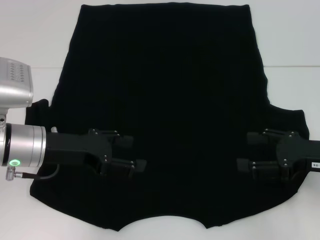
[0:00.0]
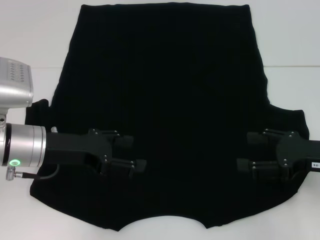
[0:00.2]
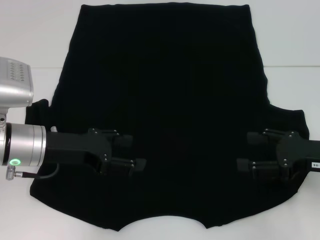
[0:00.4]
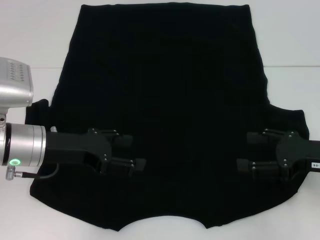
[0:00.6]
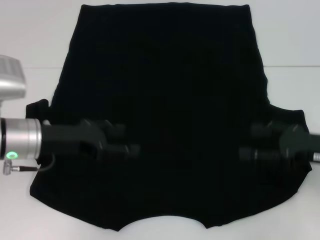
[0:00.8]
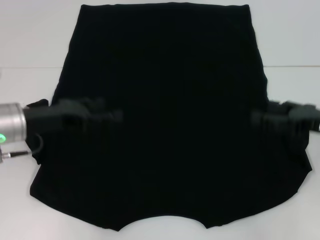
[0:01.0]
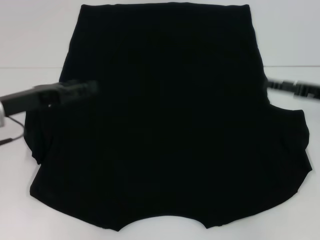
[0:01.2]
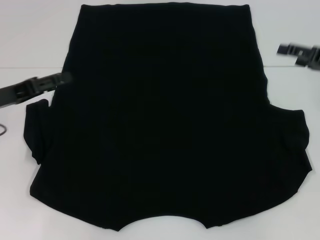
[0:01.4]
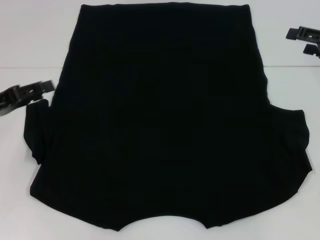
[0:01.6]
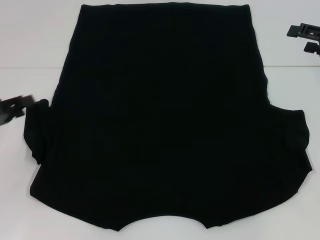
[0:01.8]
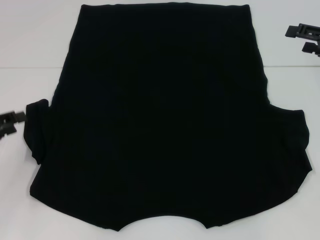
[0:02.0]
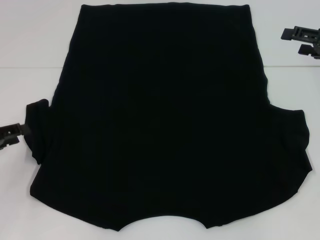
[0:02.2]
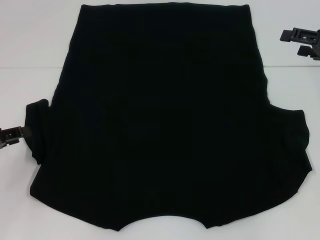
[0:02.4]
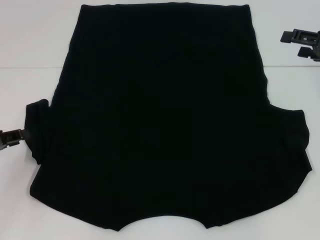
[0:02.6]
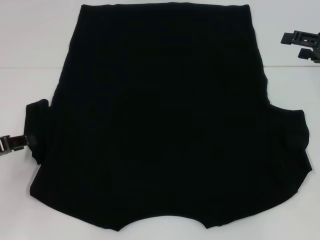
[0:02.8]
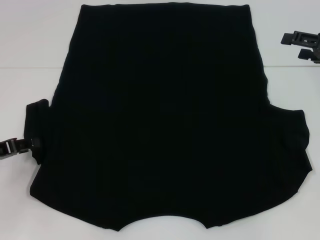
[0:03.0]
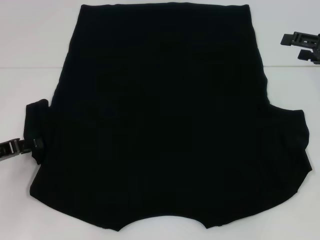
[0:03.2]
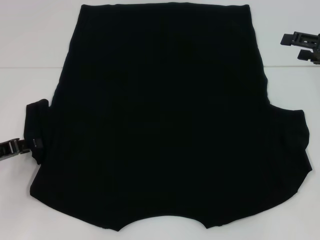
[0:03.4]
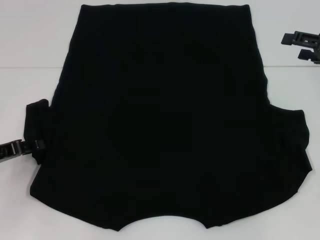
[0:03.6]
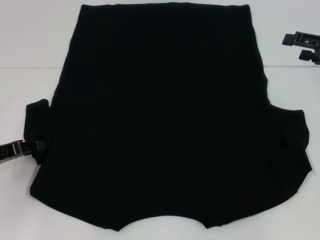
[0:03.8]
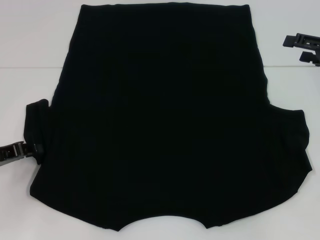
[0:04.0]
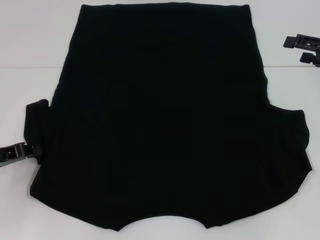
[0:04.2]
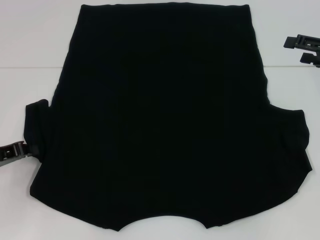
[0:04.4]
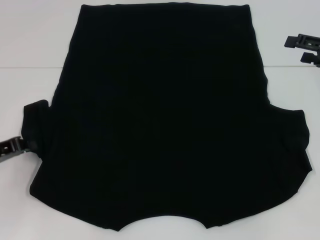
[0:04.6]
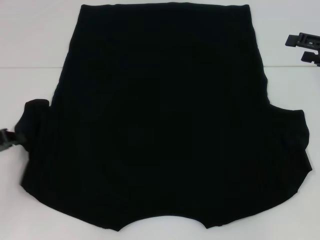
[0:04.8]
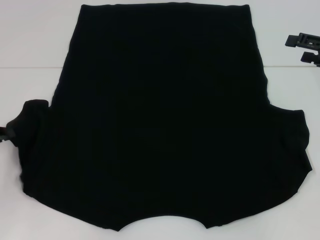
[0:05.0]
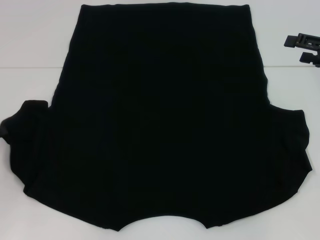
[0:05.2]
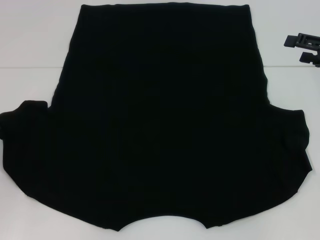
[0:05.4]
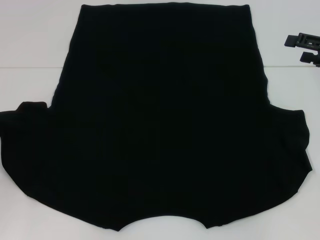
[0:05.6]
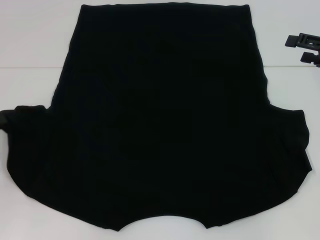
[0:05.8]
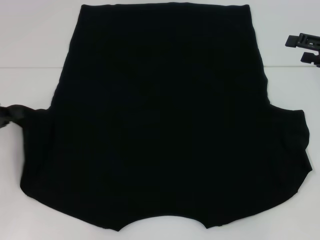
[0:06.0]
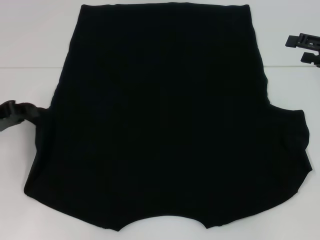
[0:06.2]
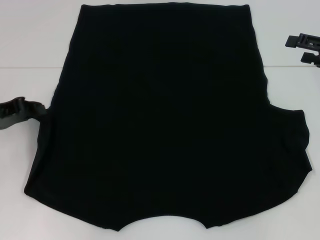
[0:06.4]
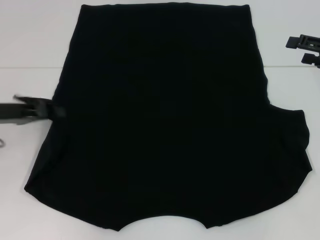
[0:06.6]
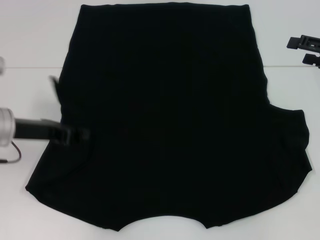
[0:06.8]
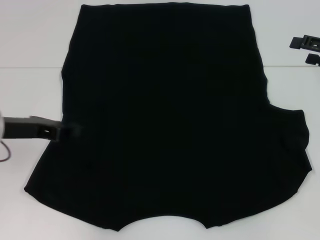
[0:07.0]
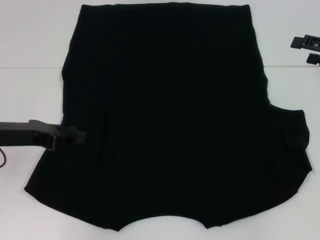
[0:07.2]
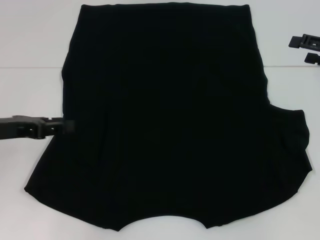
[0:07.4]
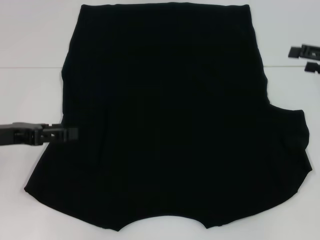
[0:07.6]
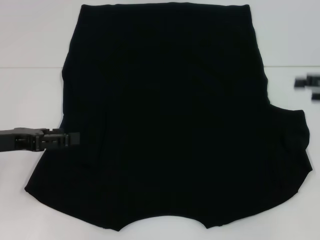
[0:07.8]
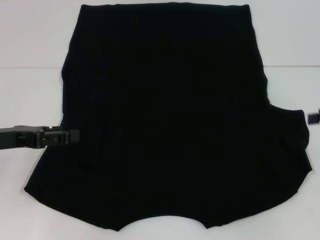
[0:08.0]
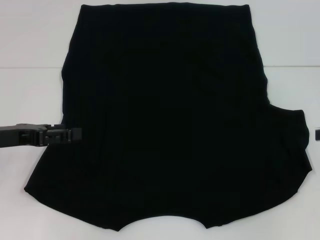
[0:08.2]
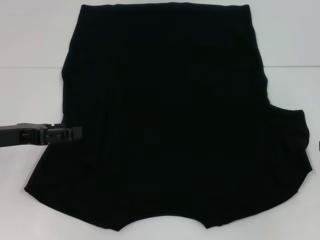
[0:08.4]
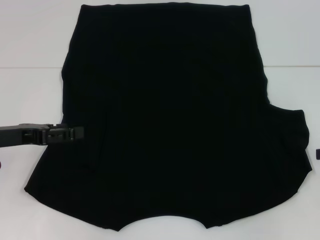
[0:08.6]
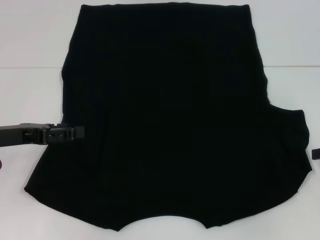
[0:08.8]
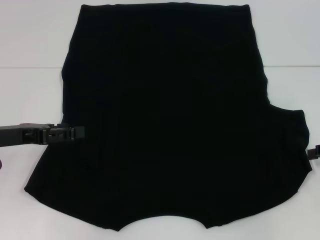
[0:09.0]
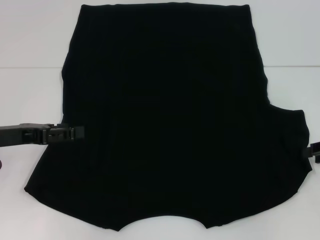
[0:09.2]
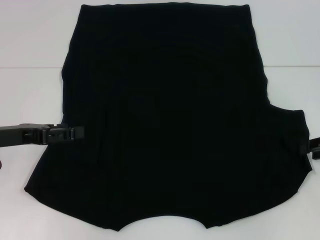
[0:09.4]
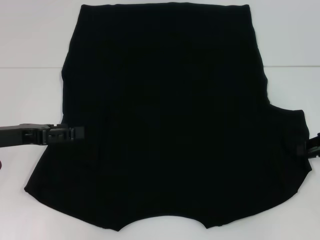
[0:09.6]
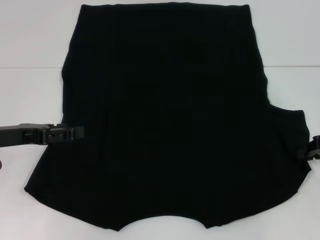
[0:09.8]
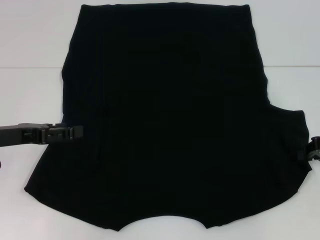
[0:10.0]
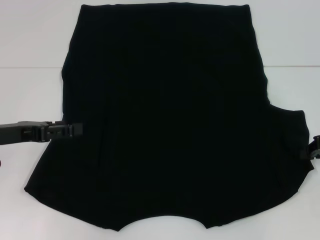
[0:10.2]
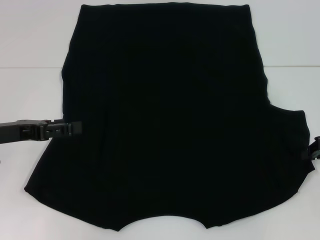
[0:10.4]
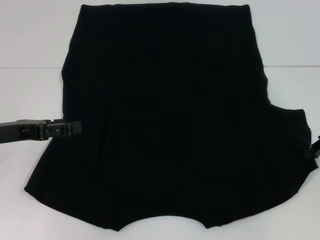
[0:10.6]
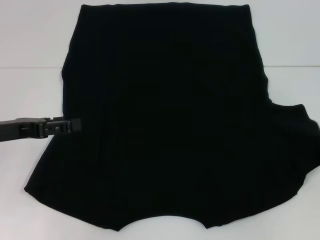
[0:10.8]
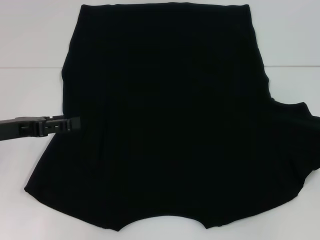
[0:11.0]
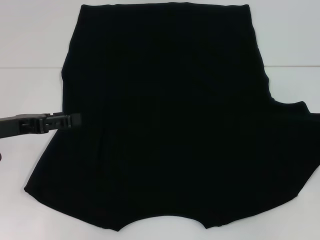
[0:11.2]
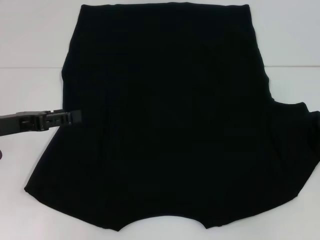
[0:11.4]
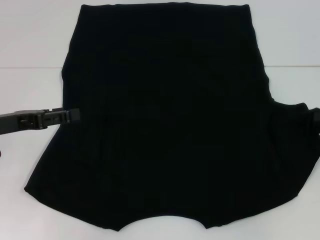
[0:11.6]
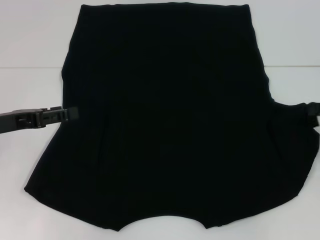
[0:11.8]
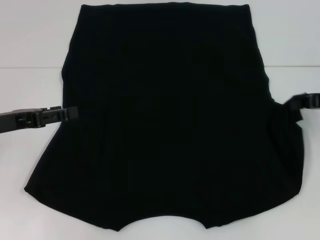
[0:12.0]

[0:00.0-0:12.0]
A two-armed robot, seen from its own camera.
Step, 0:00.0 to 0:07.0: Fold the bottom left sleeve with your left hand.
0:00.0 to 0:01.6: The left gripper heads to the left, covering roughly 10 cm; the right gripper moves forward and upward, roughly 15 cm.
0:01.6 to 0:03.0: The left gripper moves some 5 cm.
0:03.0 to 0:04.4: The left gripper closes.
0:04.4 to 0:06.0: The left gripper moves roughly 5 cm.
0:06.0 to 0:07.6: The left gripper opens its fingers.
0:07.6 to 0:09.0: The right gripper shifts some 5 cm downward and backward, and closes its fingers.
0:10.4 to 0:12.0: The right gripper moves about 5 cm.

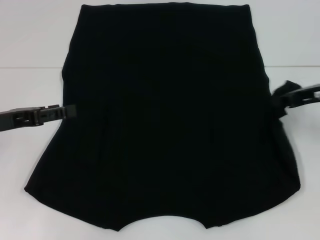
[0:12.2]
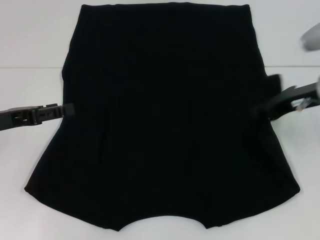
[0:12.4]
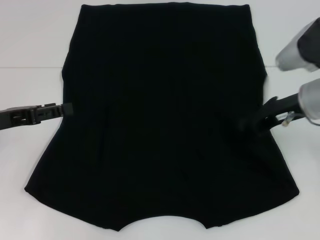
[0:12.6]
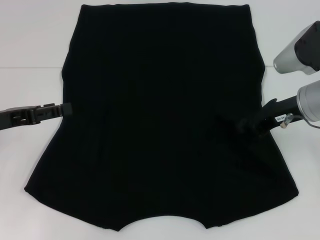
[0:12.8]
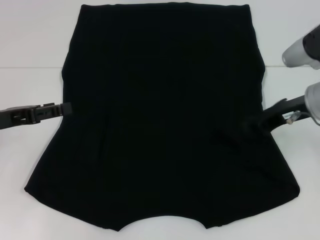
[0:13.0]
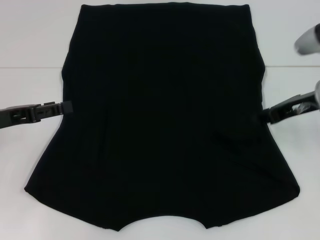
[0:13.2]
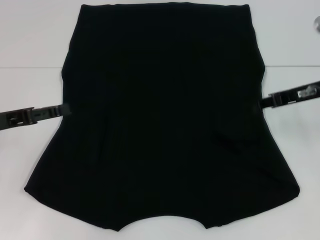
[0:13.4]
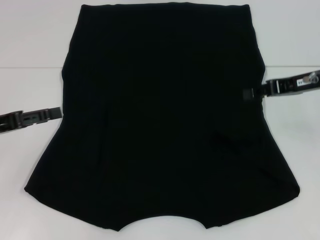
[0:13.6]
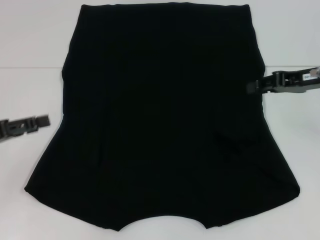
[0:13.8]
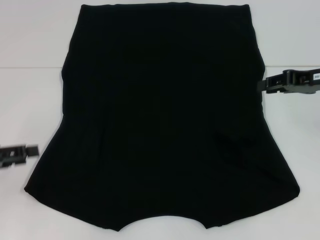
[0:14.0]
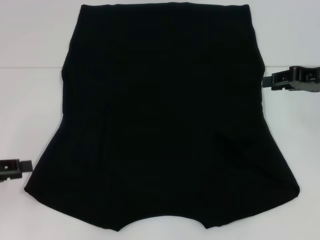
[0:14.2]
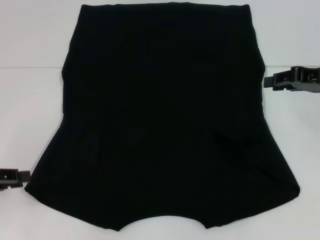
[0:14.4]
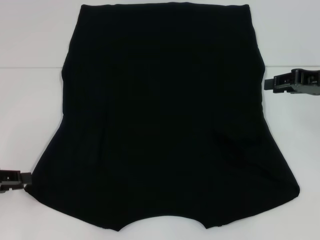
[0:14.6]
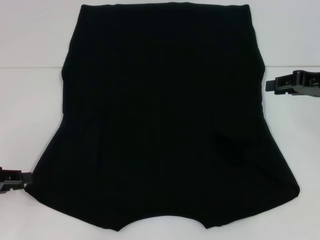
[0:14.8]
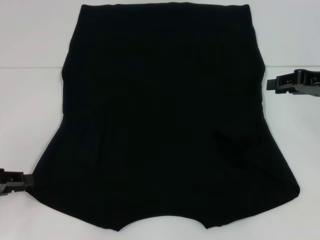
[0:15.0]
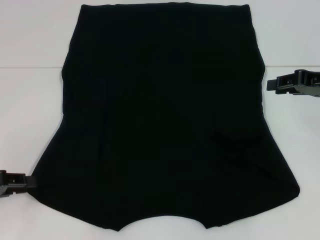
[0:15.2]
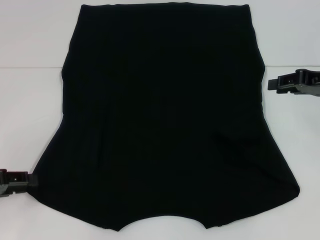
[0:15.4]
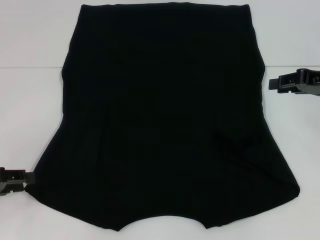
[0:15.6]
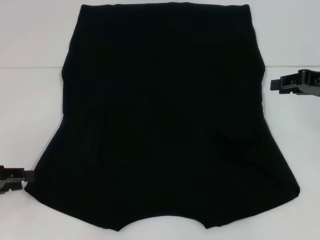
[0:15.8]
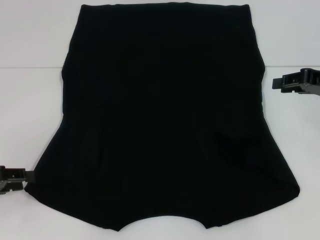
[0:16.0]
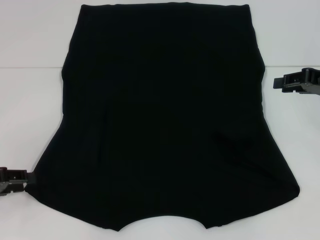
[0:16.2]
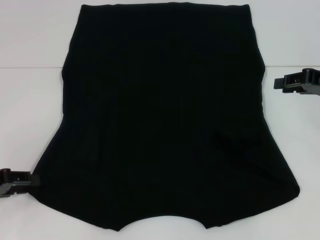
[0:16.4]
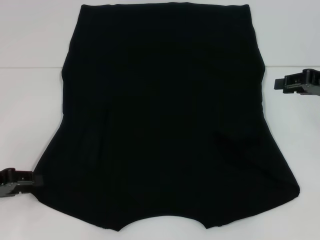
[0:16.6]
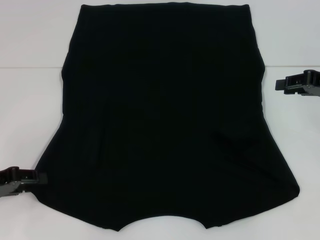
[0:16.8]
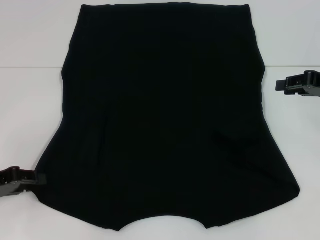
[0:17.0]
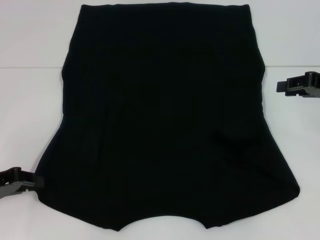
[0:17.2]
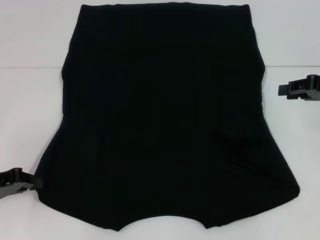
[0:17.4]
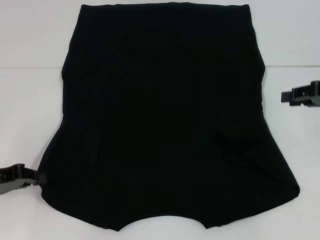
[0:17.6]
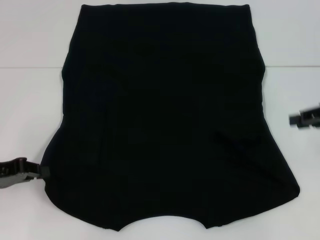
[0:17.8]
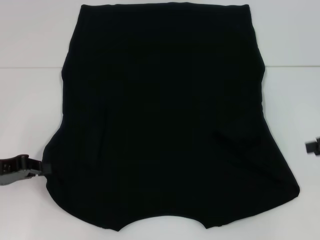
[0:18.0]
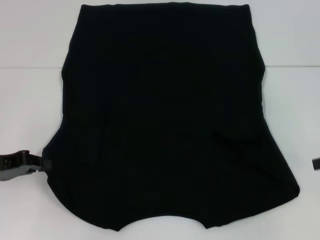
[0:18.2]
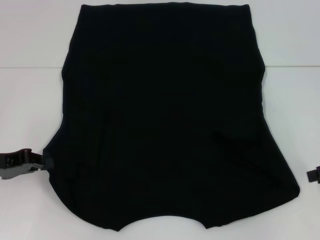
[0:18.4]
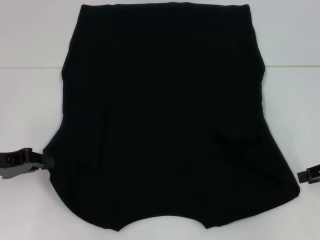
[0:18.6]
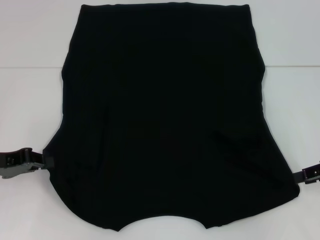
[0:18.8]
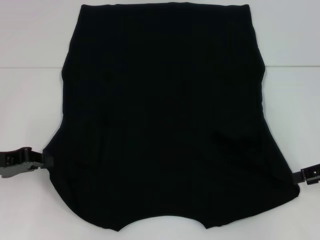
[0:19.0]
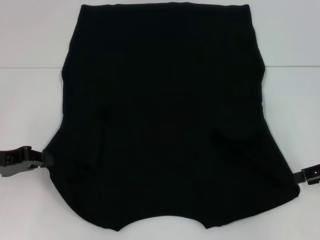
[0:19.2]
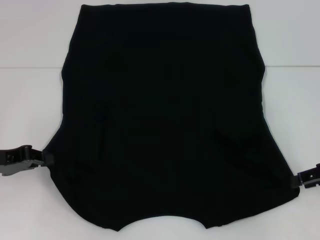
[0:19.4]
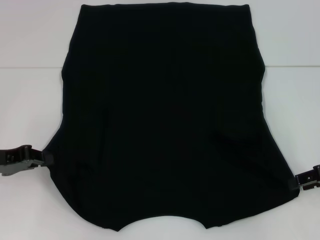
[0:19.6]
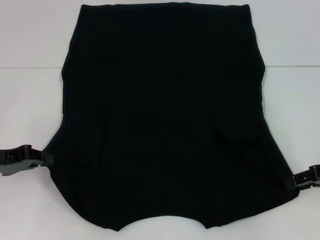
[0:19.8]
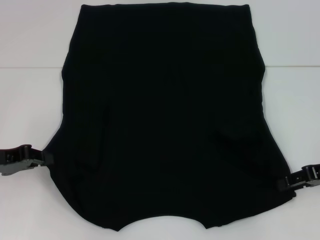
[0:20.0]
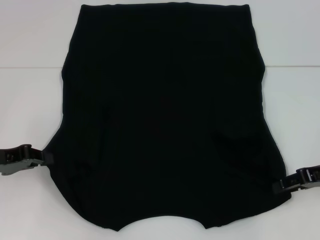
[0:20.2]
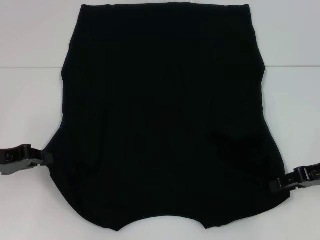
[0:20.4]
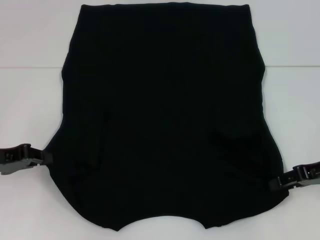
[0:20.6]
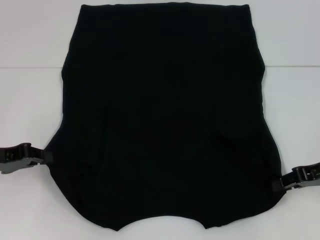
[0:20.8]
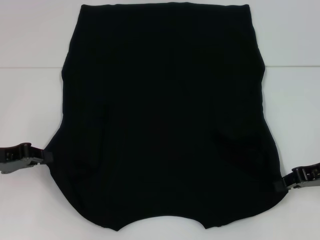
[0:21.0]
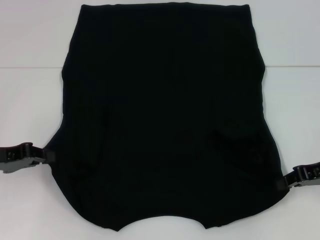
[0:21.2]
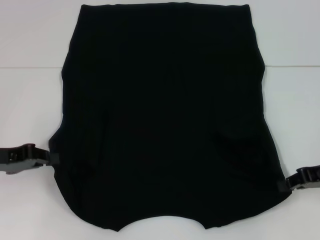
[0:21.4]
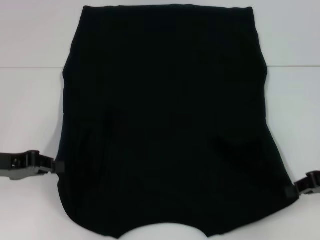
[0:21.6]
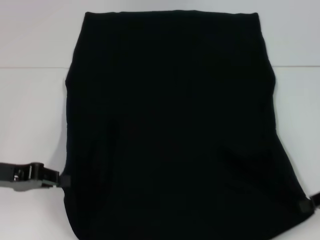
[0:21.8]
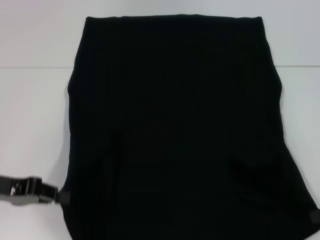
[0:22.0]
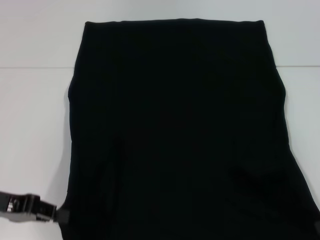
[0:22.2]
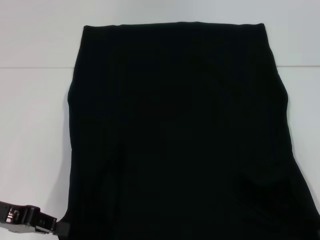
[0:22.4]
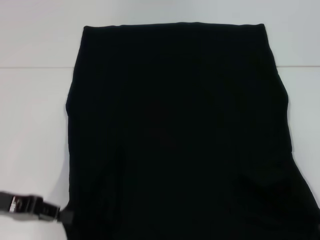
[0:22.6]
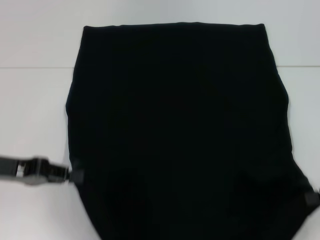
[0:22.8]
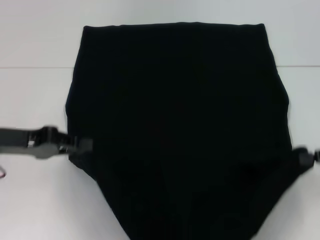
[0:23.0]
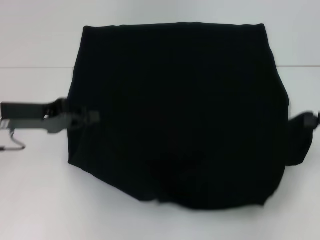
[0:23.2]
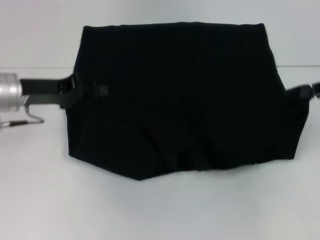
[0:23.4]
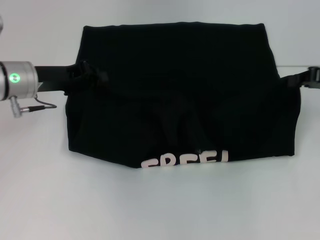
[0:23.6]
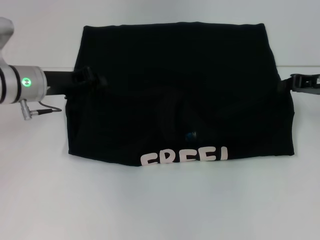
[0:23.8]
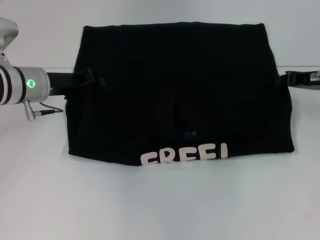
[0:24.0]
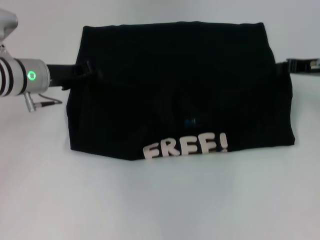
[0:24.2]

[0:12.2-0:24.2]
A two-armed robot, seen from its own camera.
Step, 0:13.0 to 0:18.0: Grab the bottom left corner with your left hand.
Step, 0:18.2 to 0:21.4: Grab the bottom right corner with your right hand.
0:12.2 to 0:13.8: The right gripper opens up.
0:13.8 to 0:15.2: The left gripper closes up.
0:15.2 to 0:16.6: The grippers stay close to where they were, moving slightly.
0:16.6 to 0:18.2: The right gripper heads backward, covering some 5 cm. Meanwhile the left gripper closes.
0:18.2 to 0:19.8: The right gripper moves approximately 5 cm.
0:19.8 to 0:21.2: The right gripper closes its fingers.
0:21.2 to 0:22.6: The right gripper travels backward and to the right by some 10 cm.
0:22.6 to 0:24.2: The right gripper shifts some 20 cm forward; the left gripper moves forward and to the right, roughly 20 cm.
